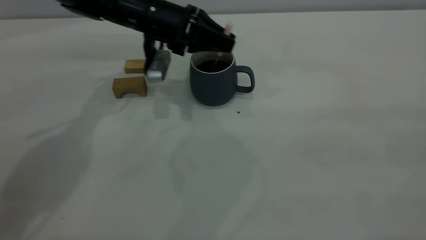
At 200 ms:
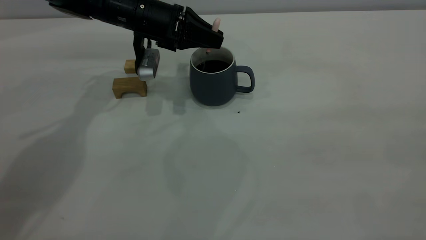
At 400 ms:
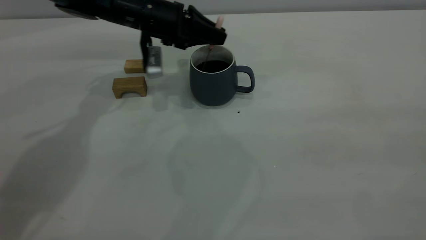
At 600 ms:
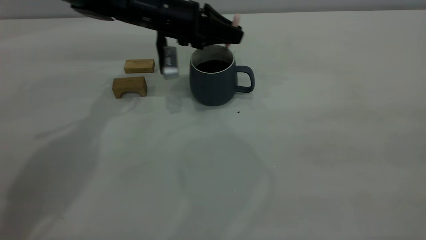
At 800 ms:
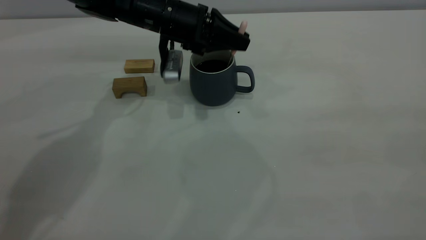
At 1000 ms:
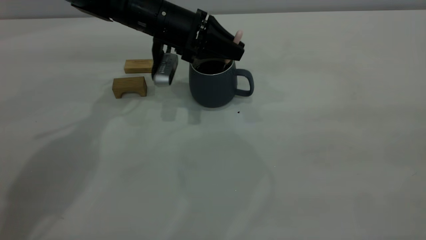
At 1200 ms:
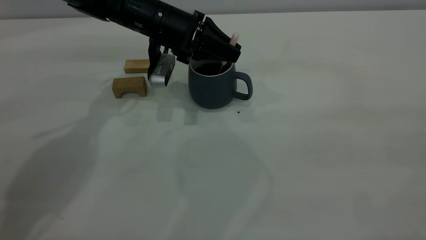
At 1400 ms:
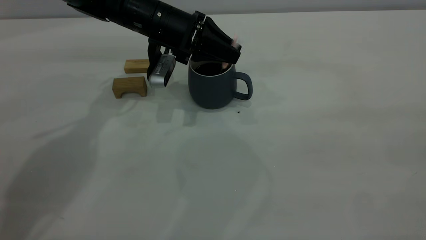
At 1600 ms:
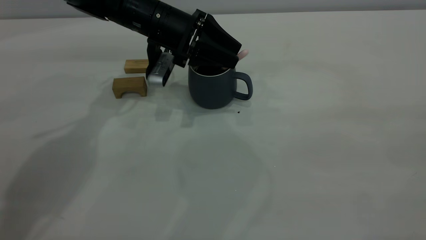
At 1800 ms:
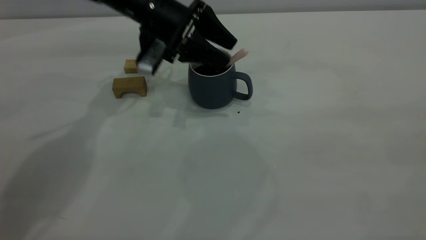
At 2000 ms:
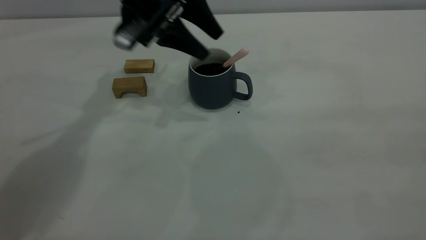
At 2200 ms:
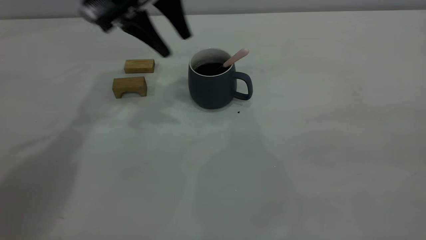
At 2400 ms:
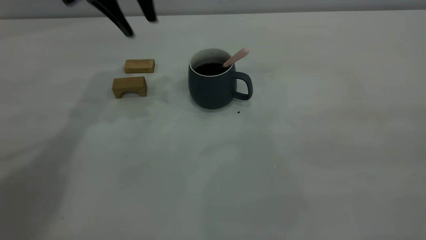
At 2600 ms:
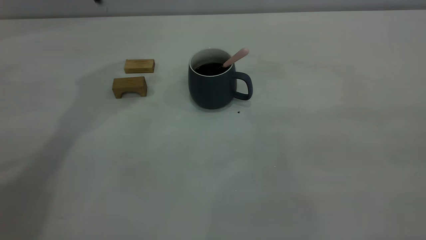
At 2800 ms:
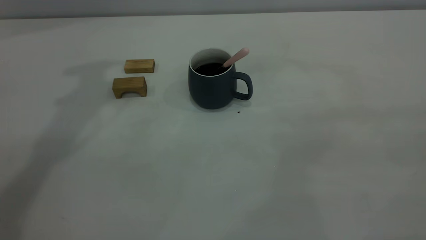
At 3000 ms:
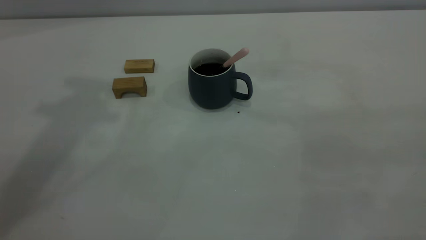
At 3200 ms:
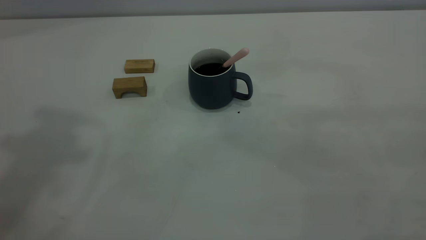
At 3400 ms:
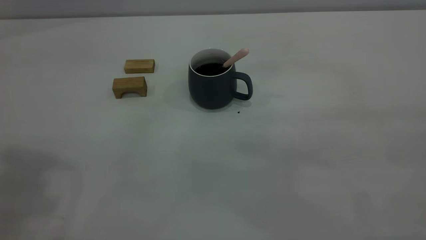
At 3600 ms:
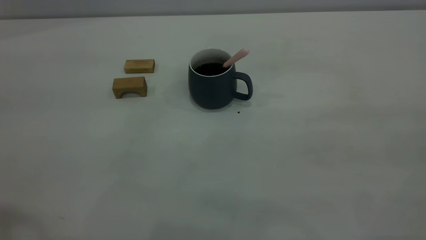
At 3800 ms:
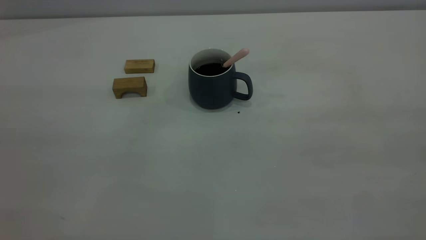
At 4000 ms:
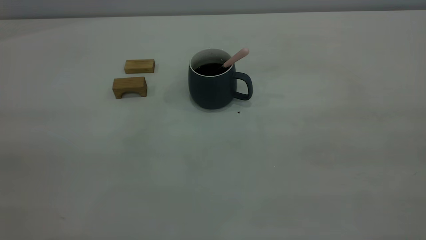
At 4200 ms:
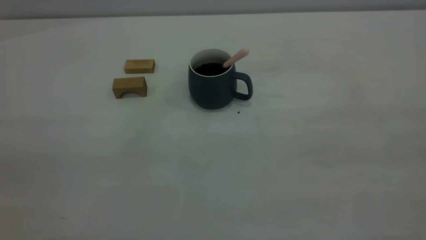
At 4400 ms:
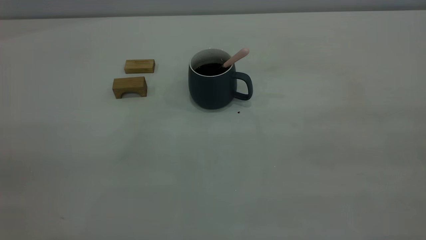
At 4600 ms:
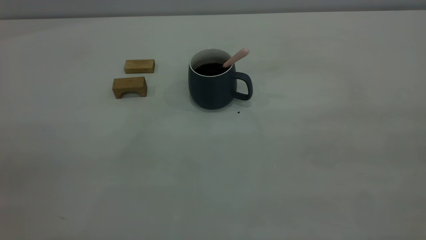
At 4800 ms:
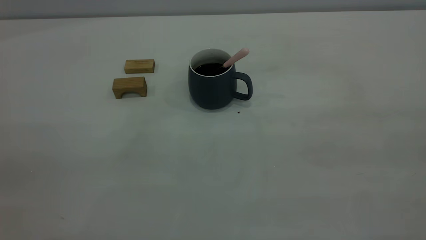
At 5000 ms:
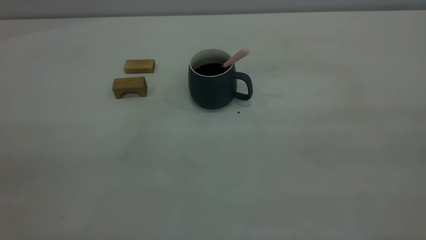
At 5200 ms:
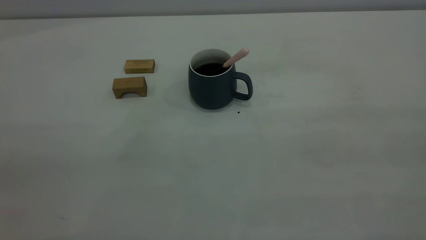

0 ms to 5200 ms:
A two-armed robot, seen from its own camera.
Step, 0 ms to 2000 ms: Stir the coffee in the cup.
0 ms to 1800 ms: The left gripper opens its fingers.
1800 ms to 3400 ms: The left gripper travels upward, backward and to the left by approximately 40 cm.

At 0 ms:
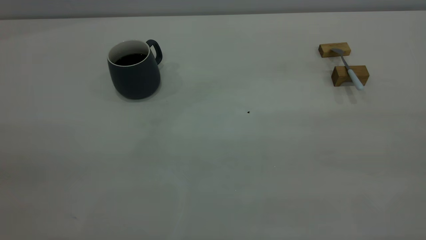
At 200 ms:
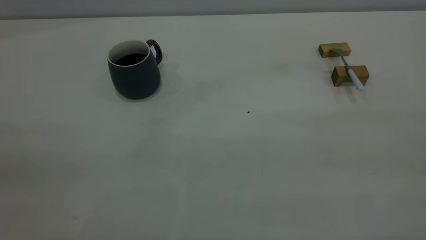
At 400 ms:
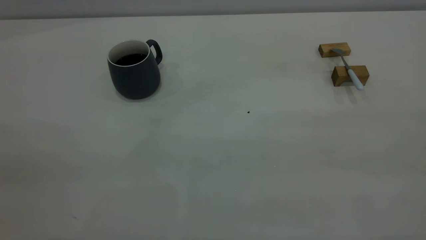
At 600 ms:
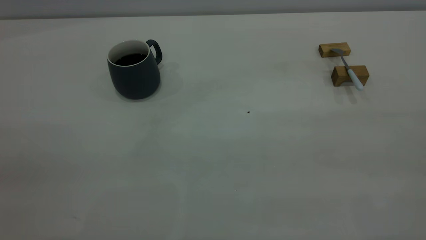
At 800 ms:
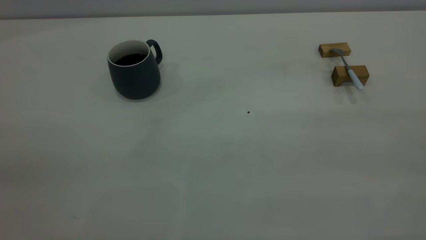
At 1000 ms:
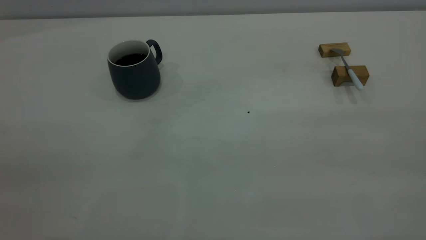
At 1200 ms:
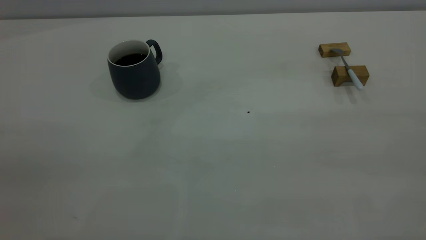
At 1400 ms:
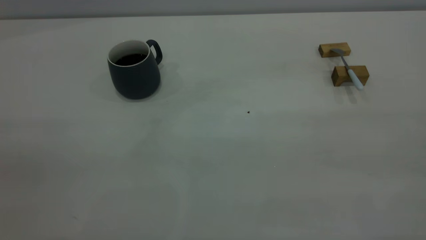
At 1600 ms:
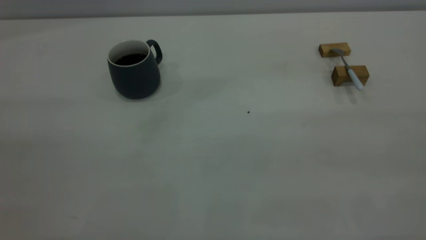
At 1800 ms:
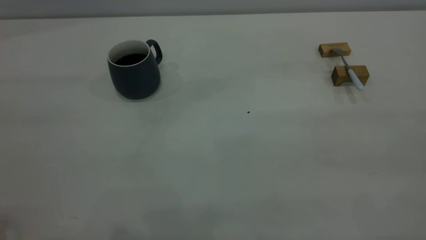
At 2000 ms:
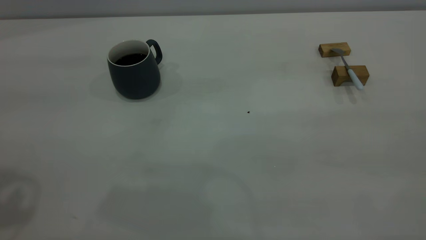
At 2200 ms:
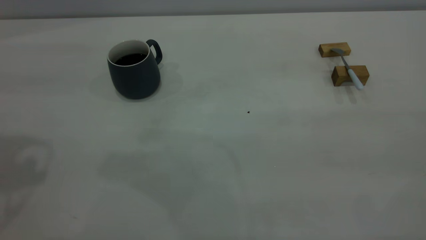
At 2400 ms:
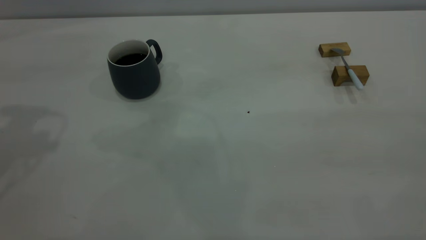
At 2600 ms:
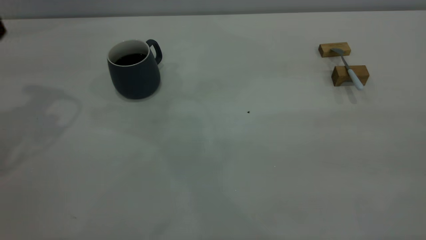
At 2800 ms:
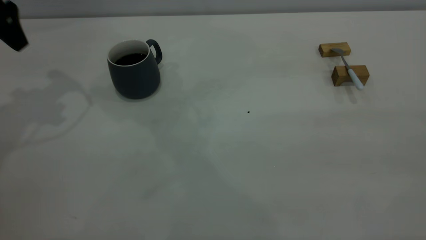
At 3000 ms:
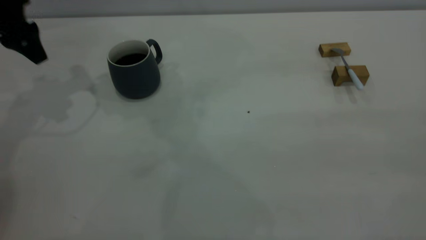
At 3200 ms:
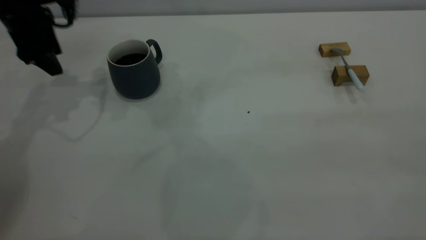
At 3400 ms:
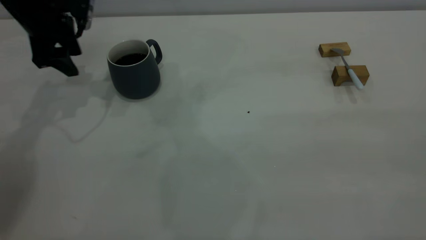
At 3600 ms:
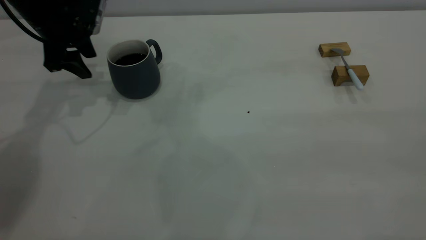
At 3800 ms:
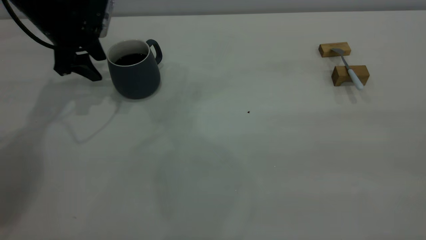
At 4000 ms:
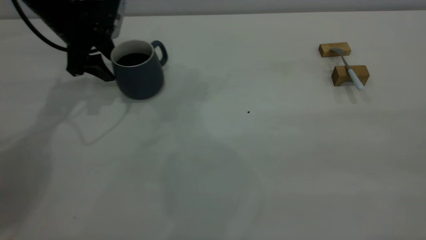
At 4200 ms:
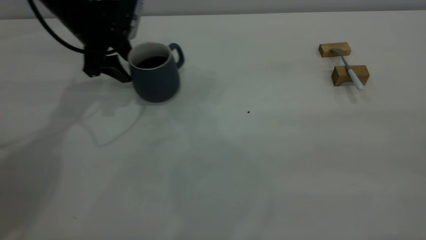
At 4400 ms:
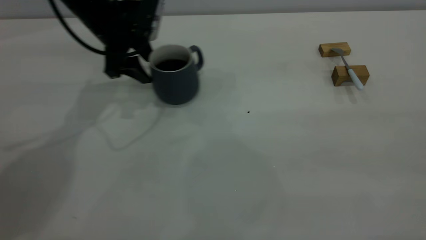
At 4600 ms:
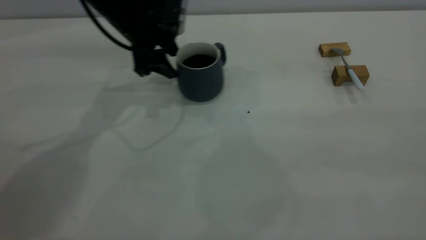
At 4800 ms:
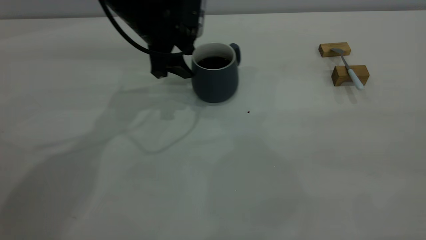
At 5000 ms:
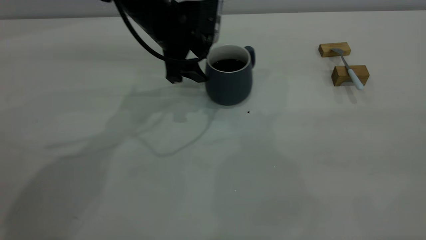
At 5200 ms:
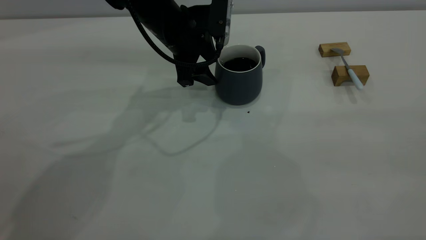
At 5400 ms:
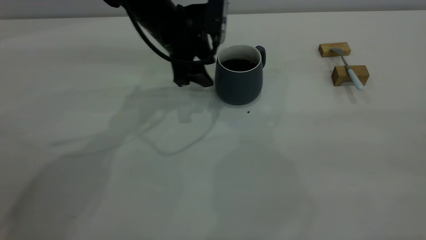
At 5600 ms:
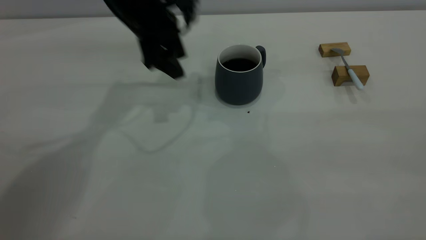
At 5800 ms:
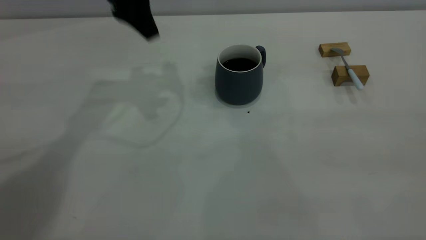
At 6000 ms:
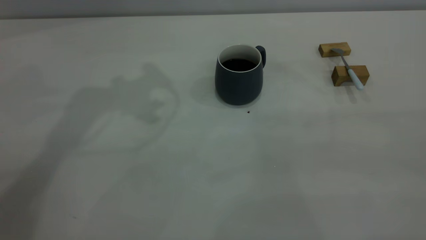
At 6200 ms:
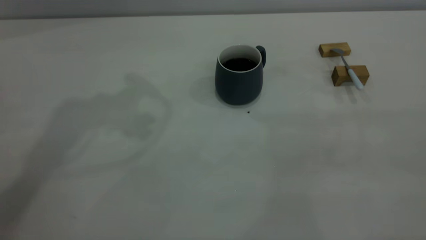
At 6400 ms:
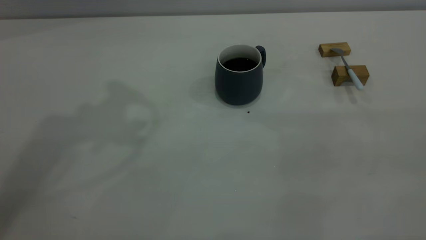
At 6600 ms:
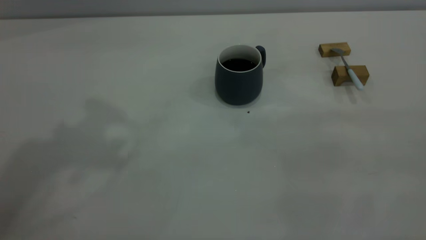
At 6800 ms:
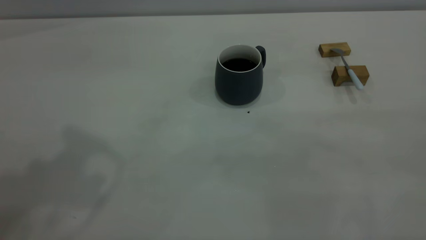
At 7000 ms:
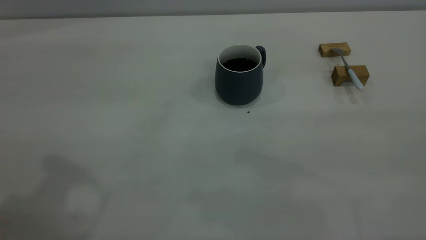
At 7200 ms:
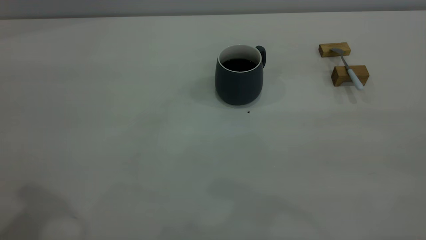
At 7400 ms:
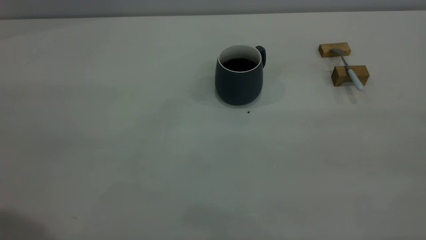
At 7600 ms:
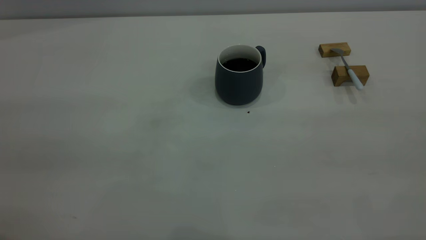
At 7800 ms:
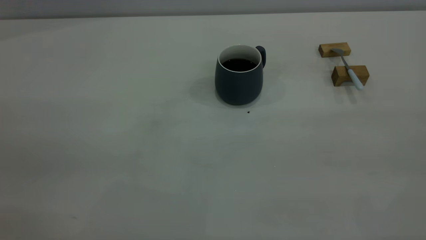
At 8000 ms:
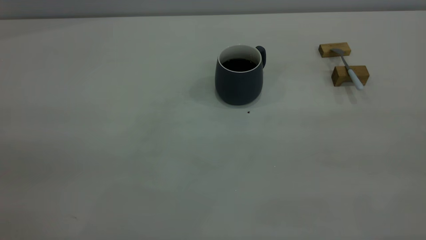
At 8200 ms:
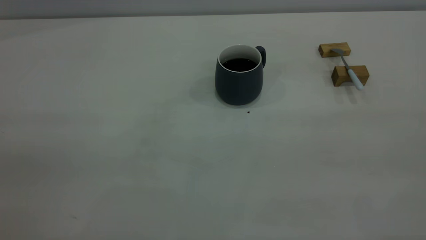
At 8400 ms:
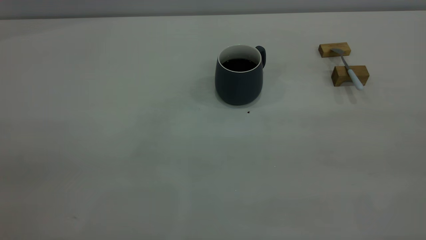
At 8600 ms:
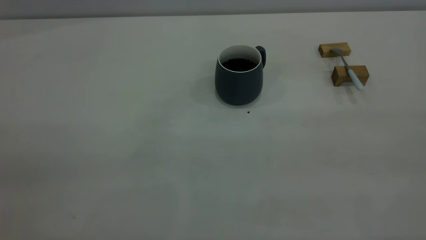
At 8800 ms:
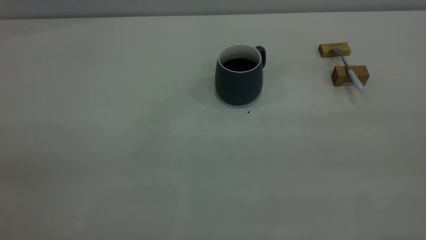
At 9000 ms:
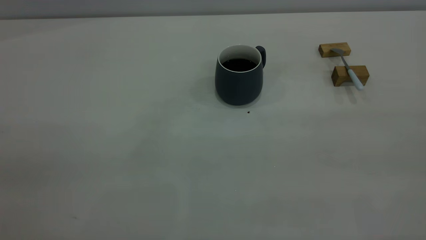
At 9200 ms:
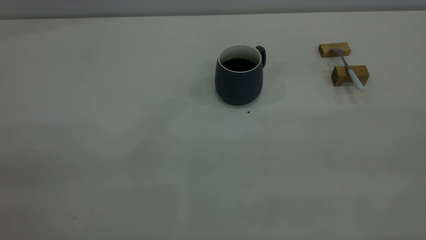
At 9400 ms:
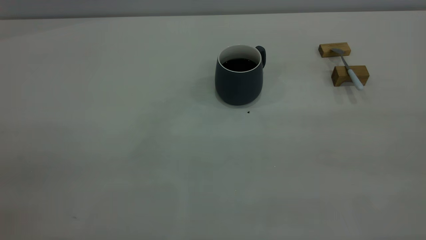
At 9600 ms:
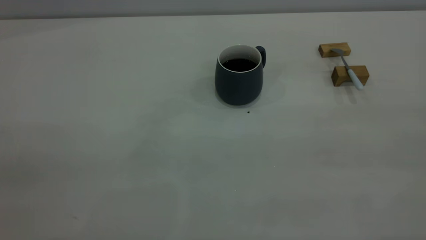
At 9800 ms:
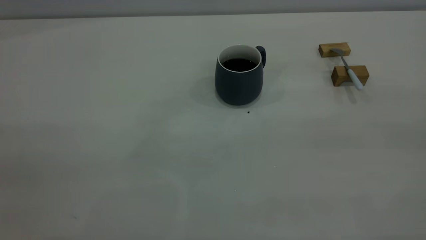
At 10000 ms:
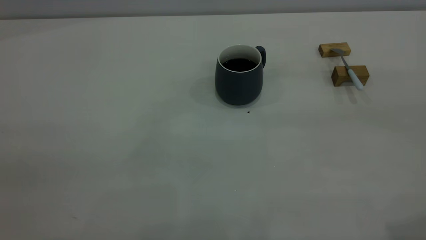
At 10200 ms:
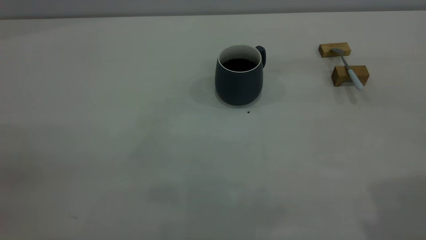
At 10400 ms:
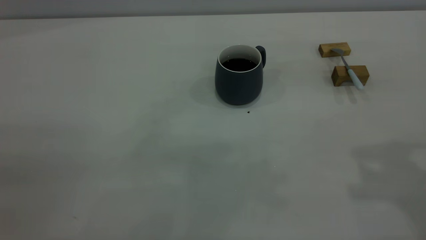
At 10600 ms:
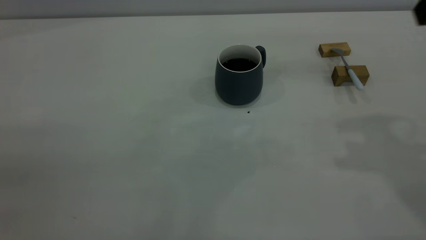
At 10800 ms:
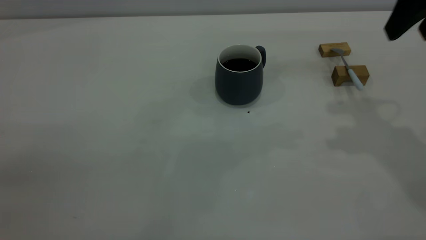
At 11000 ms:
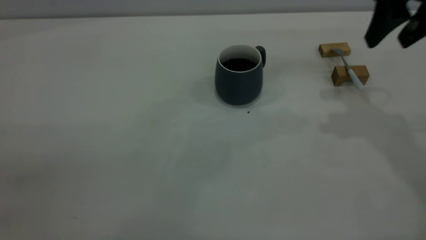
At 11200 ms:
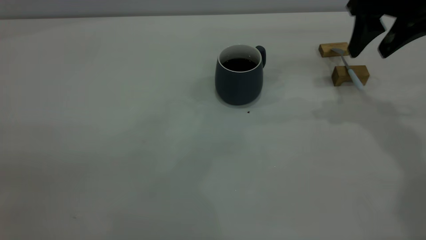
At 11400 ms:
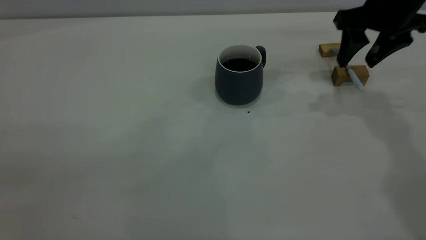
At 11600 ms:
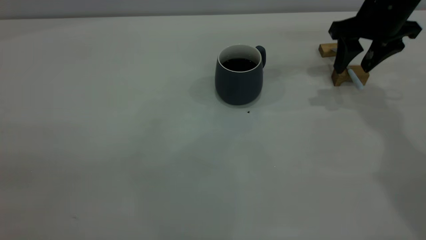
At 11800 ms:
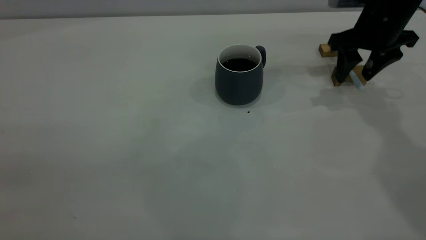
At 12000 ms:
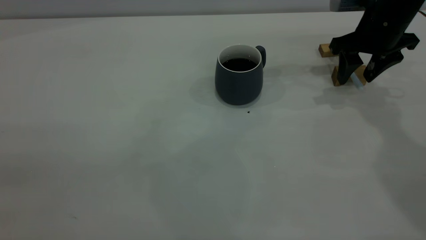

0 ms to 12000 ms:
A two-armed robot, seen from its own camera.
Step, 0 ms to 5400 ms: Move the cup with coffee to the center of view.
1600 ms to 3000 ms: The left gripper travels forward and downward by about 40 cm.
3000 ms to 4400 ms: The left gripper heads to the right and downward, covering approximately 15 cm.
4400 ms to 6000 ms: The left gripper moves upward, roughly 20 cm.
10400 ms to 12000 ms: The right gripper is displaced downward and forward by approximately 30 cm.
